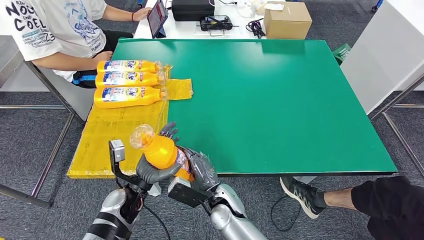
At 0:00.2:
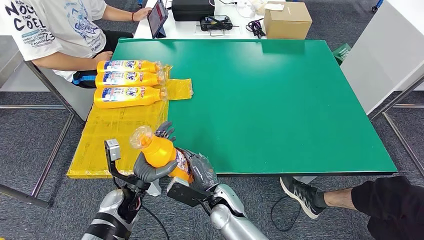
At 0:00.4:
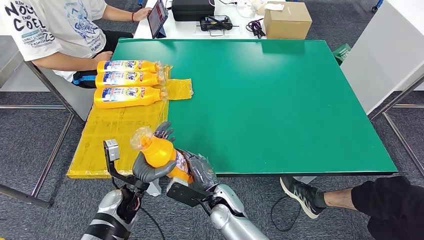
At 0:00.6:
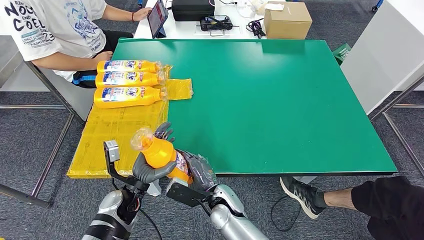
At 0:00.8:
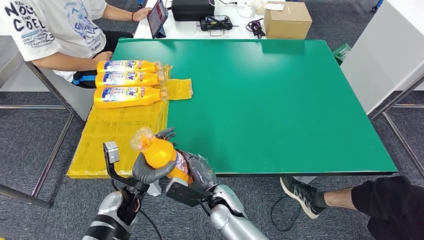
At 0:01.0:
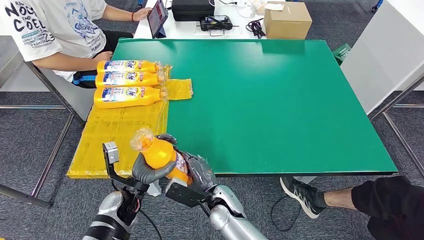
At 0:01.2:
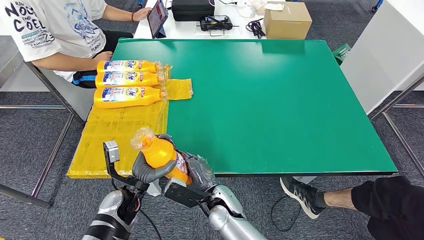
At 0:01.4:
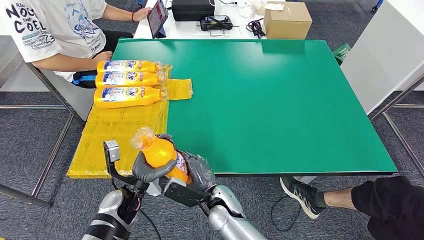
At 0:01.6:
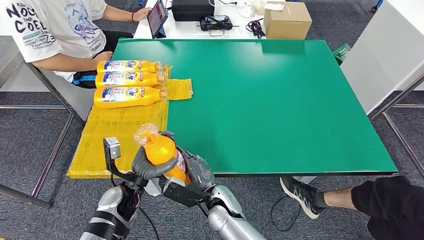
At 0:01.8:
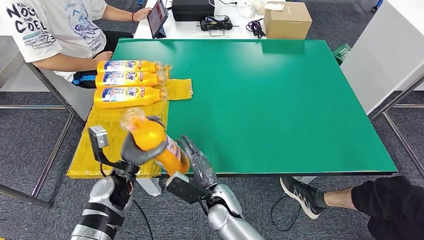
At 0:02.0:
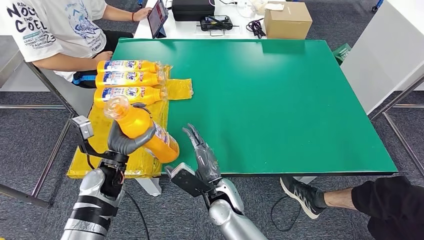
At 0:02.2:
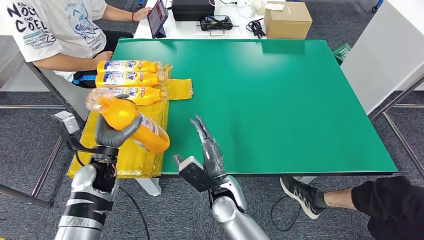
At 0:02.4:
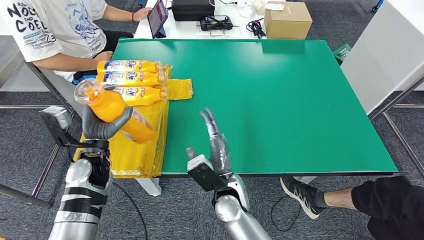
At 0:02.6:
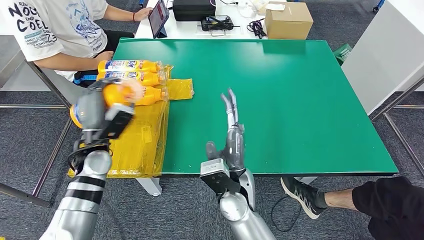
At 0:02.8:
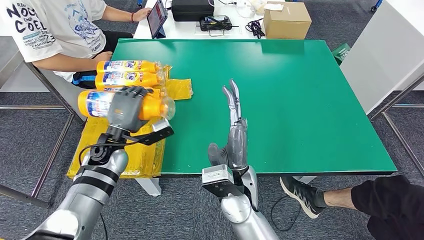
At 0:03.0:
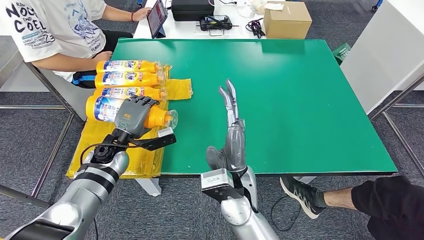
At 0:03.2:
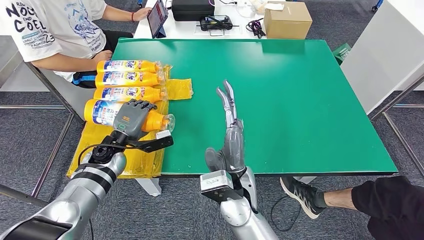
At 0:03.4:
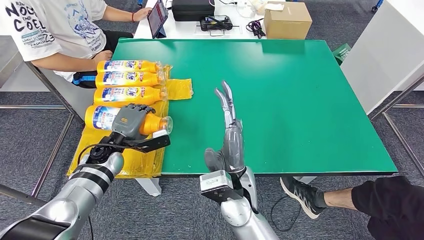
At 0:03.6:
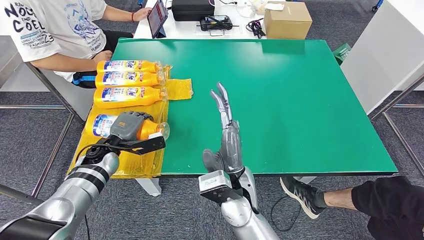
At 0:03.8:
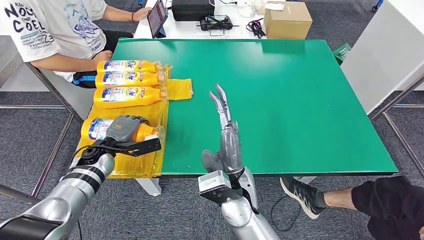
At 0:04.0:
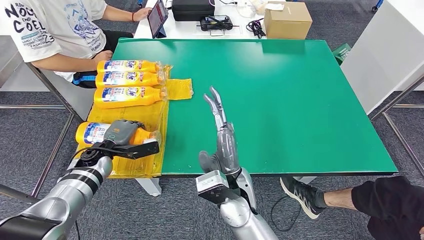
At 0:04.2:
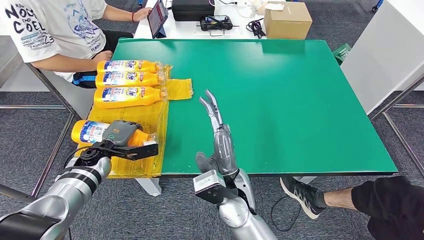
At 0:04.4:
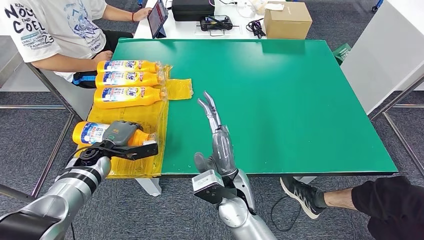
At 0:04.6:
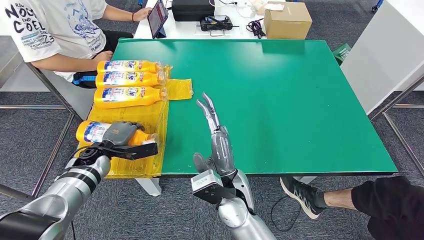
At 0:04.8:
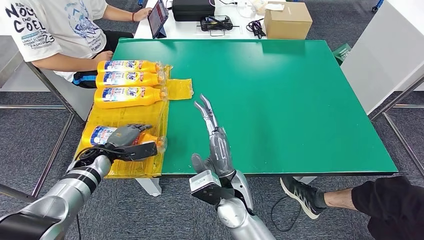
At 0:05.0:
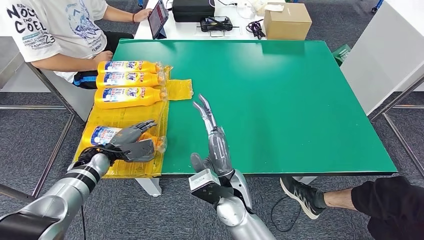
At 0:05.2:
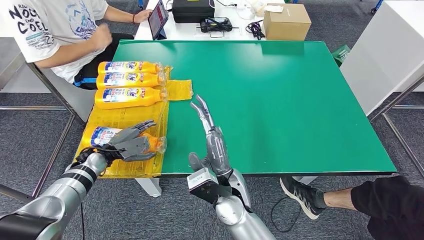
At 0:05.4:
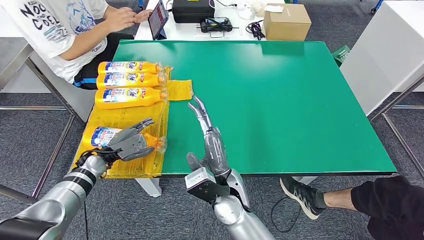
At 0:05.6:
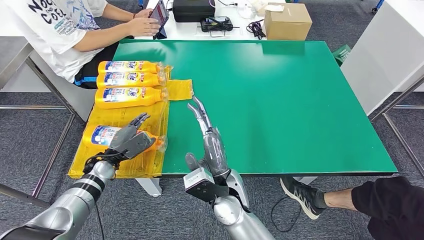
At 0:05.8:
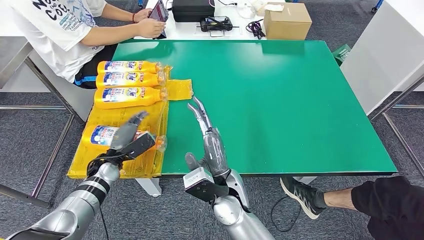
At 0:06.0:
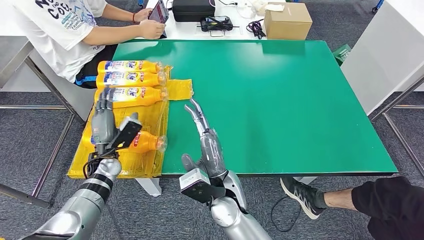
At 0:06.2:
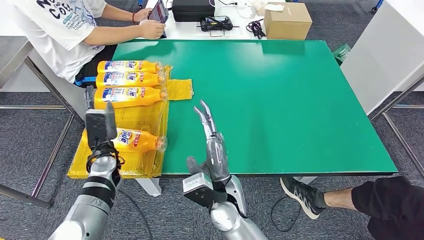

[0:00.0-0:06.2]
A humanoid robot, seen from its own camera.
Step, 0:00.0 to 0:06.2: Flip the fast-moving consumer goods bottle to the front side.
0:00.0 to 0:01.6: The hands stay close to where they were, moving slightly.
0:01.6 to 0:03.2: The left hand goes some 15 cm forward and to the left. Meanwhile the right hand heads upward, covering roughly 15 cm.
0:03.2 to 0:04.6: The left hand goes roughly 5 cm to the left.
